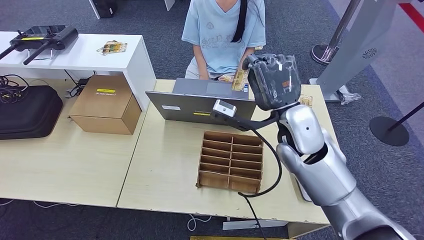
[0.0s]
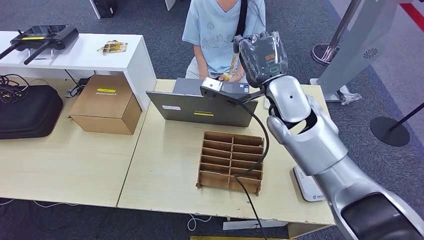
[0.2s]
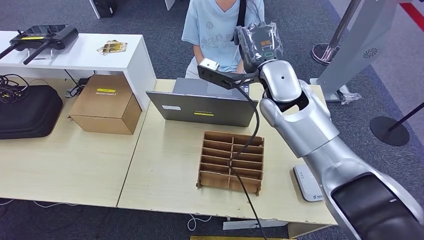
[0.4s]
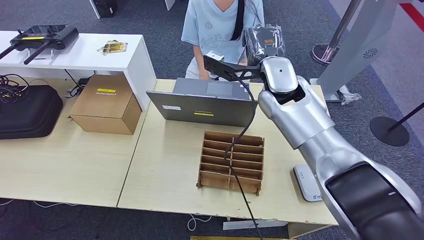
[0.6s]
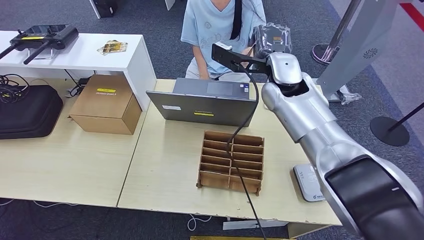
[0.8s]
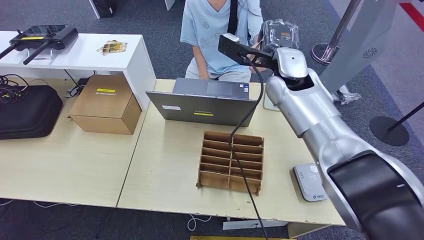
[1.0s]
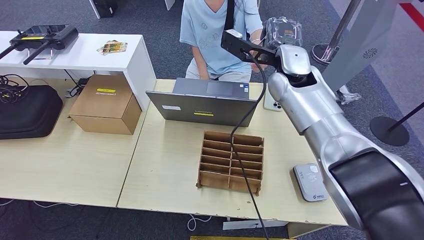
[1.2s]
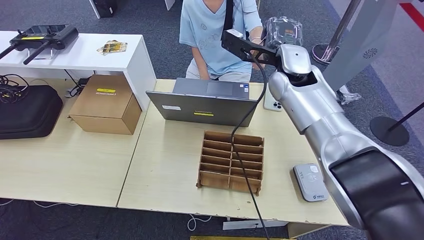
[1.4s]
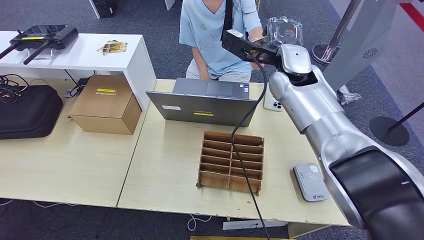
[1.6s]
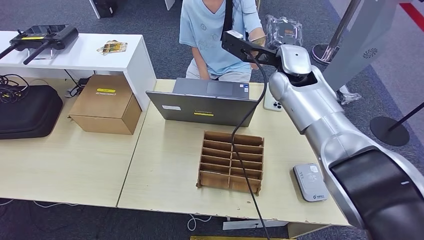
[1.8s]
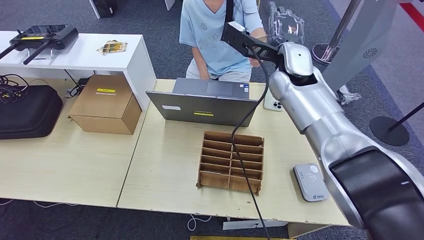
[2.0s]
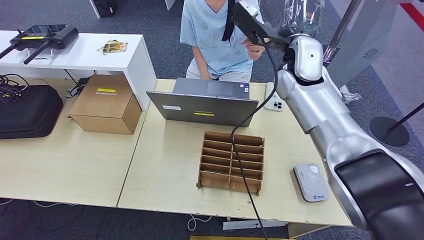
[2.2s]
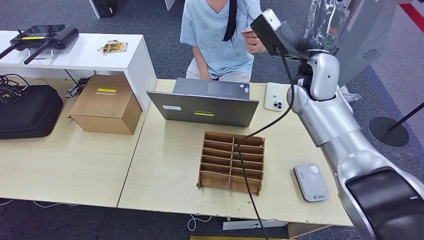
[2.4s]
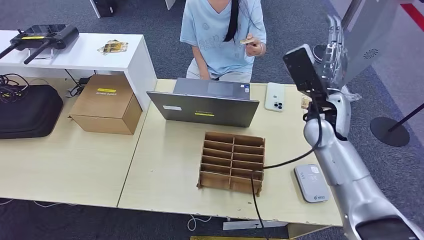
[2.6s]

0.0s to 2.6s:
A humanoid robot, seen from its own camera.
Step, 0.0s to 2.4s: Hand the room key to the person.
0.0s to 1.2s: The right hand heads forward and upward, covering approximately 10 cm.
1.2s to 2.6s: The right hand goes roughly 15 cm to the right, downward and backward.
